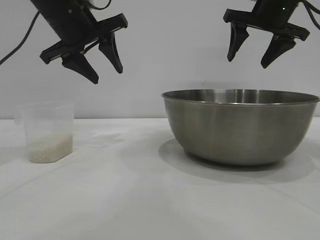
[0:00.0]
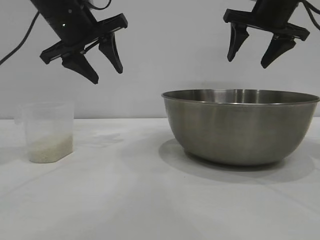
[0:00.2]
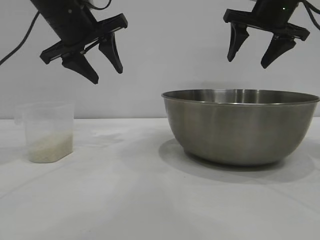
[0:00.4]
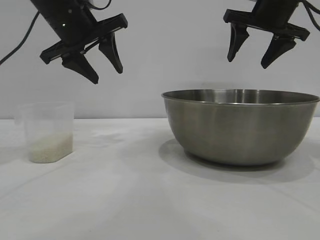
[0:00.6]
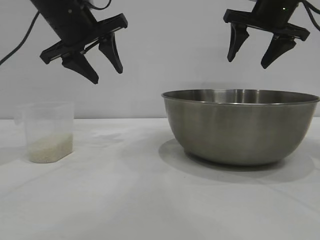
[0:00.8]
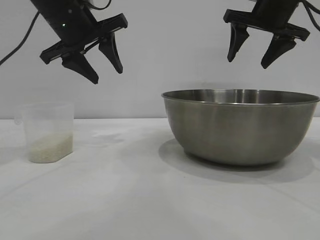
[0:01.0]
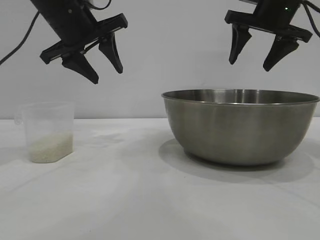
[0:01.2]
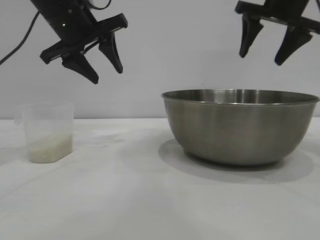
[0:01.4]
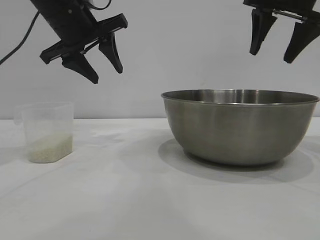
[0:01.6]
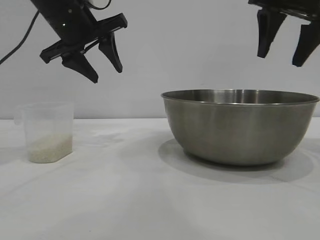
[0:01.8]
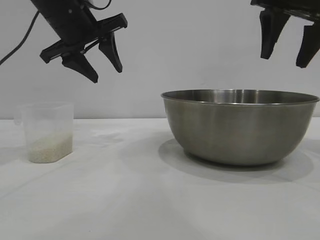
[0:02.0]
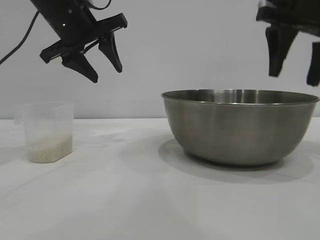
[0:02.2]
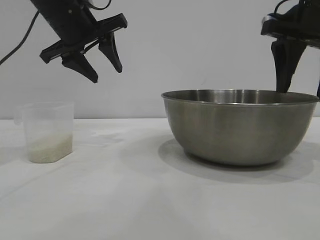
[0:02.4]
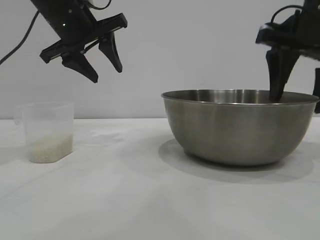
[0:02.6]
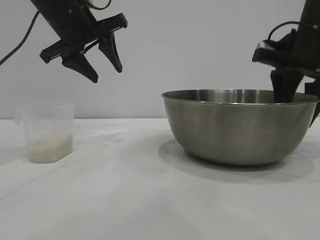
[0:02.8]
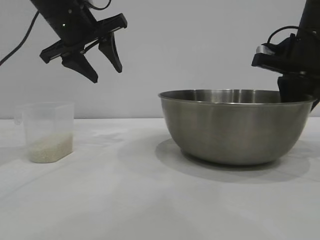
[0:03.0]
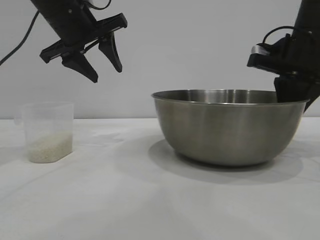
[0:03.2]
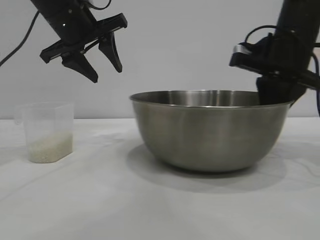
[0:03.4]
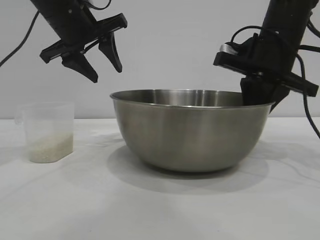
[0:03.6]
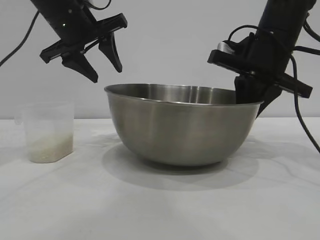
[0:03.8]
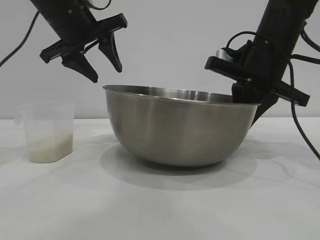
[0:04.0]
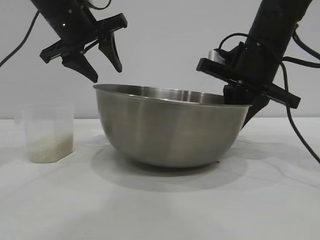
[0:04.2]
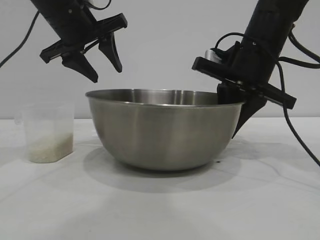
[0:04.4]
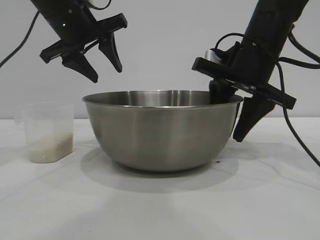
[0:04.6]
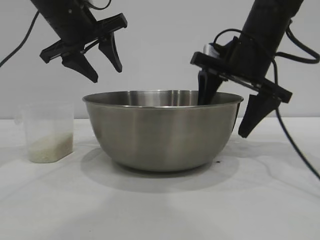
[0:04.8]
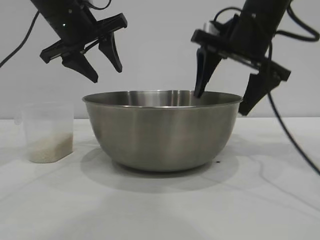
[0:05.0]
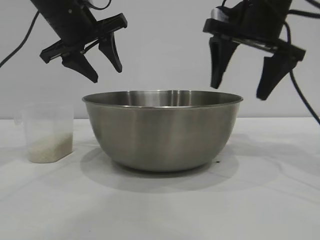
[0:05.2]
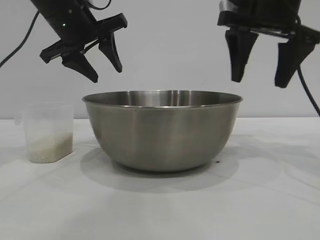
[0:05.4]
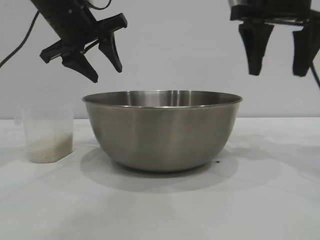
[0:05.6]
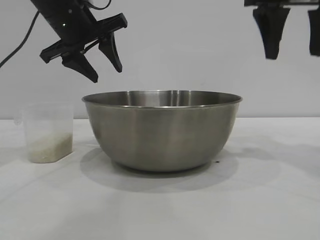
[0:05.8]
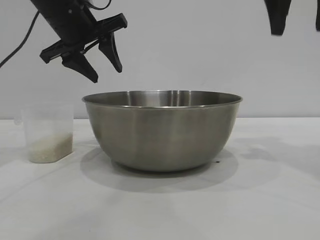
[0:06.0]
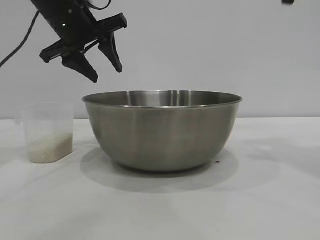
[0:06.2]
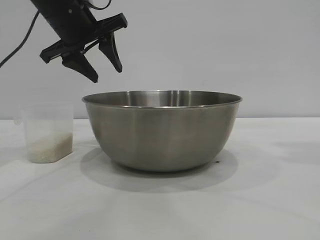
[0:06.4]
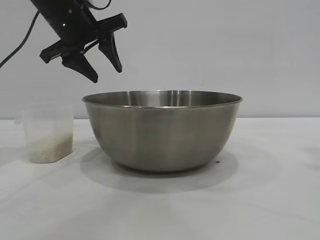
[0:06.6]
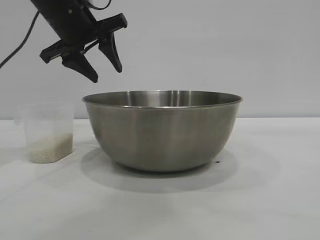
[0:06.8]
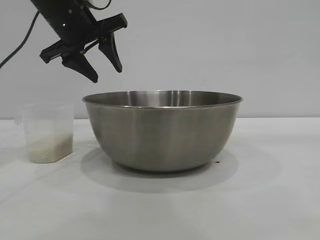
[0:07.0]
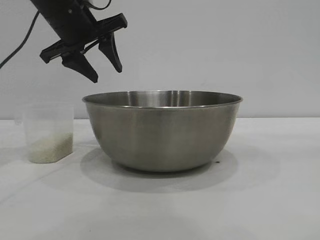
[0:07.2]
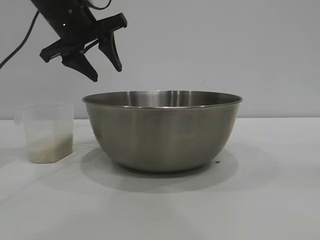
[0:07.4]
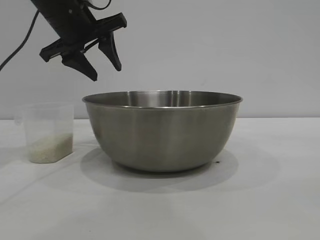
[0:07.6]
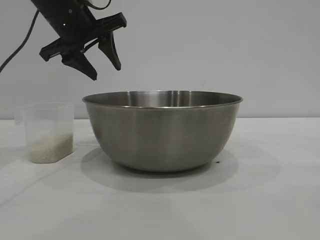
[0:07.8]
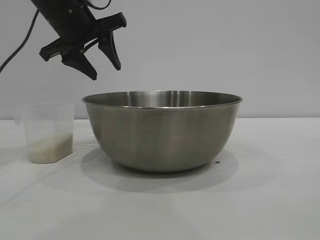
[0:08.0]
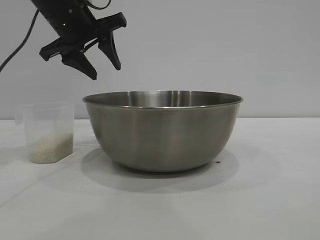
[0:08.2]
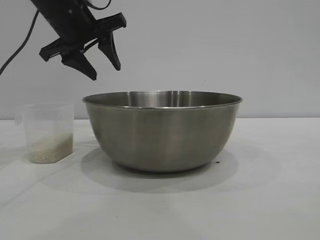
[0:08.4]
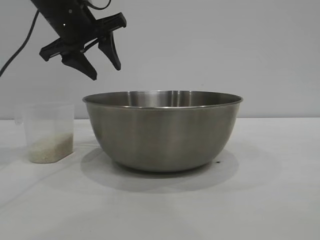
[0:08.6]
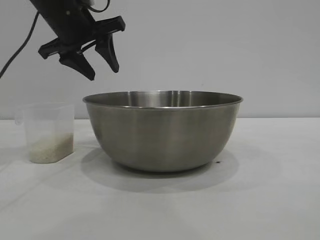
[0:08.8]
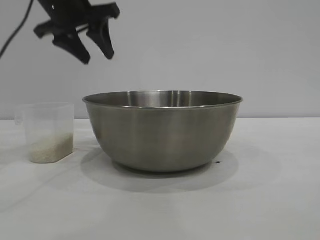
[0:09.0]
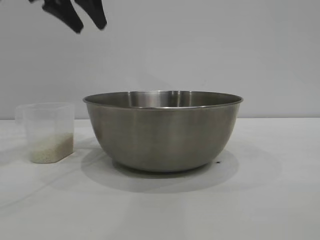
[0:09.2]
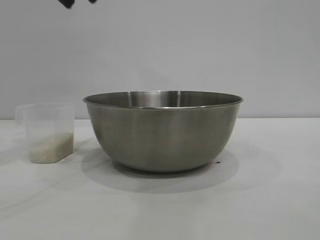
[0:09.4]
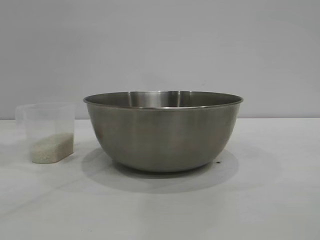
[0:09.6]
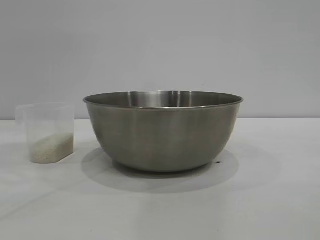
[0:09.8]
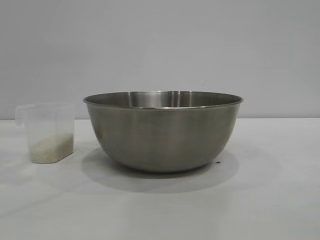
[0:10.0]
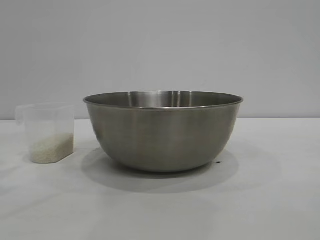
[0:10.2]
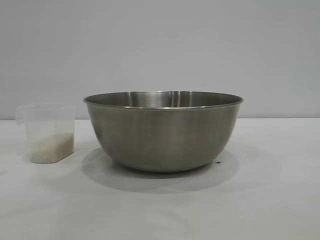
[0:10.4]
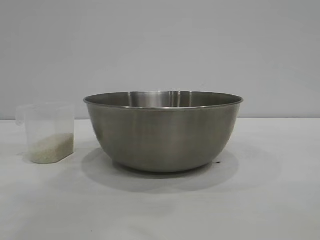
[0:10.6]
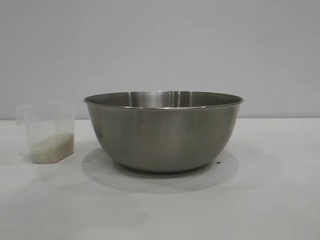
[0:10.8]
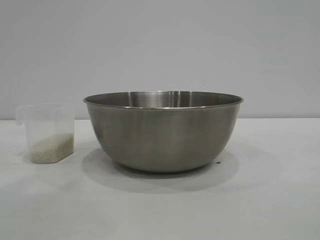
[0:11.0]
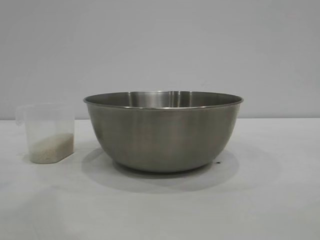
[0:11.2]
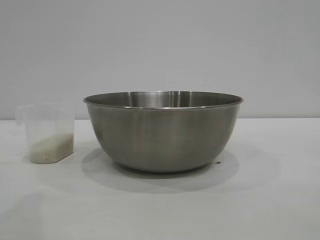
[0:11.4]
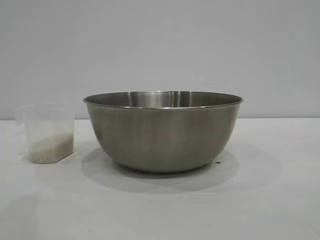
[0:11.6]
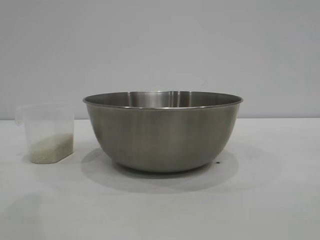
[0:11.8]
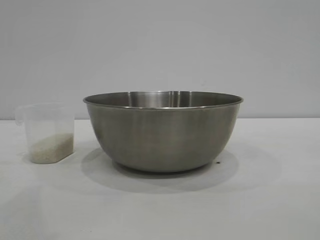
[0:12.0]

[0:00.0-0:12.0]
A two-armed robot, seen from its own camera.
Task of the whole recording: the right gripper grasp the rice container and place it in the center of the table, the left gripper grasp the rice scoop and pour the rice into the rice container.
Step, 0:00.0 to 0:05.2: Move the bowl to the center of view with the right gripper.

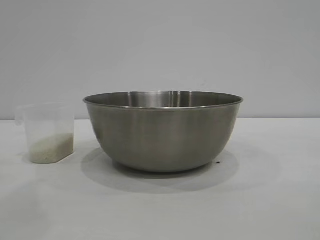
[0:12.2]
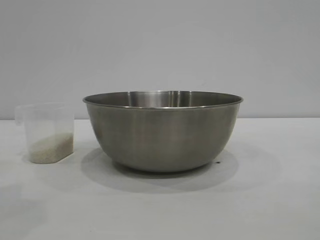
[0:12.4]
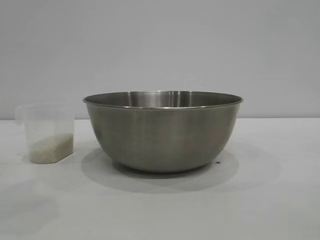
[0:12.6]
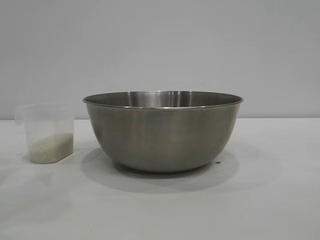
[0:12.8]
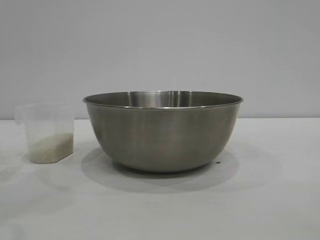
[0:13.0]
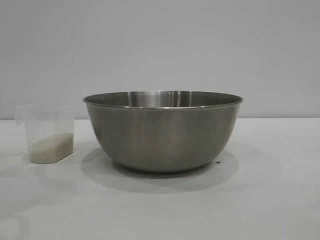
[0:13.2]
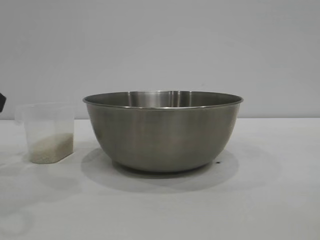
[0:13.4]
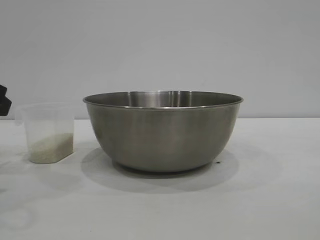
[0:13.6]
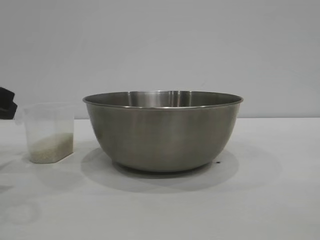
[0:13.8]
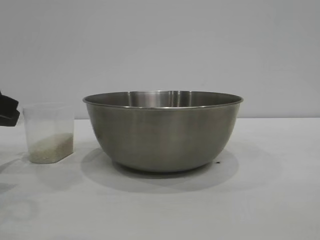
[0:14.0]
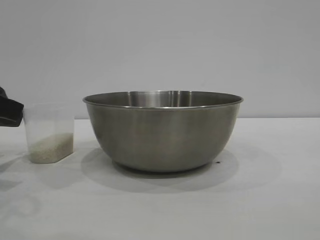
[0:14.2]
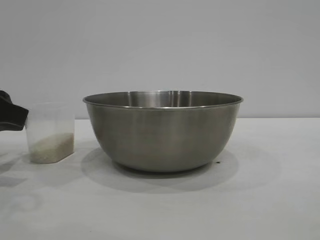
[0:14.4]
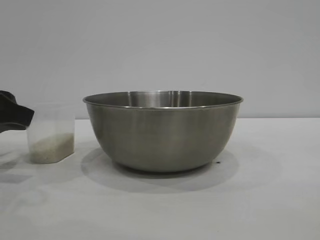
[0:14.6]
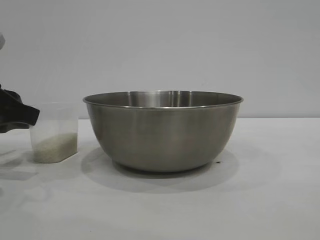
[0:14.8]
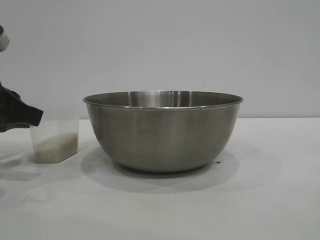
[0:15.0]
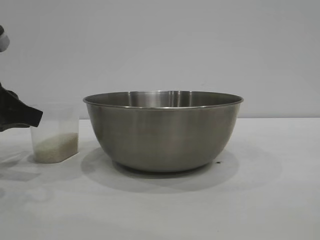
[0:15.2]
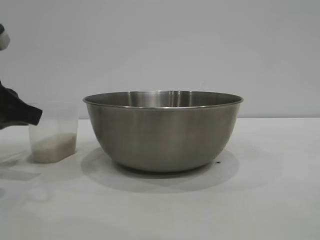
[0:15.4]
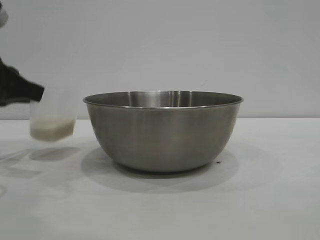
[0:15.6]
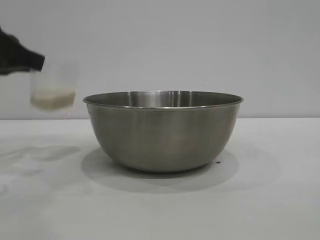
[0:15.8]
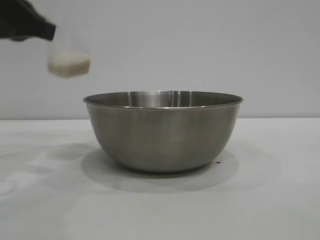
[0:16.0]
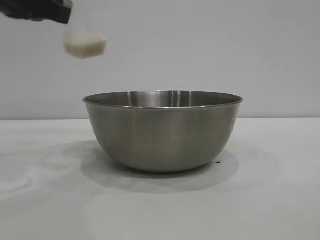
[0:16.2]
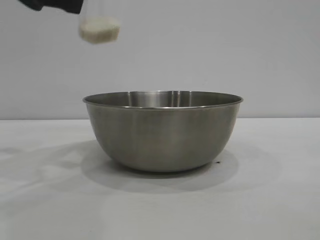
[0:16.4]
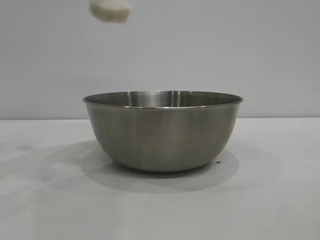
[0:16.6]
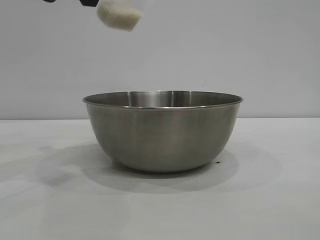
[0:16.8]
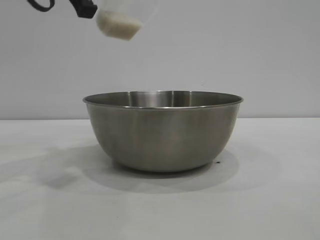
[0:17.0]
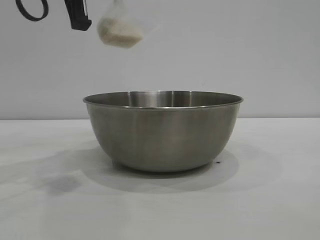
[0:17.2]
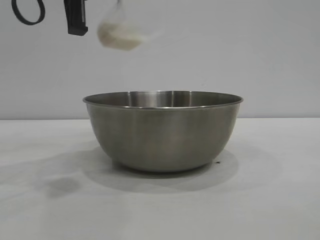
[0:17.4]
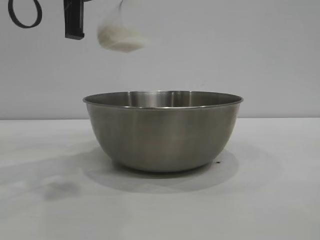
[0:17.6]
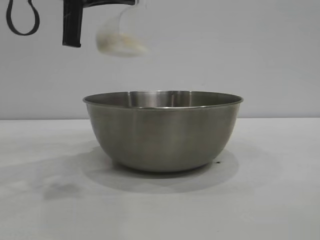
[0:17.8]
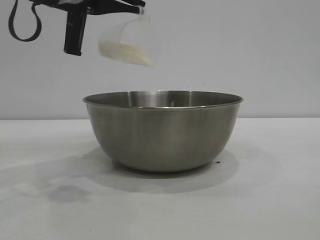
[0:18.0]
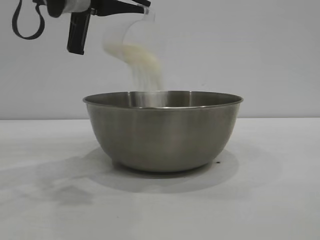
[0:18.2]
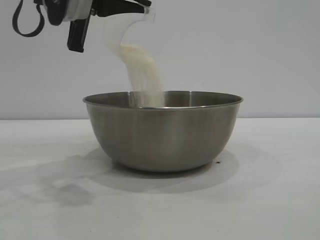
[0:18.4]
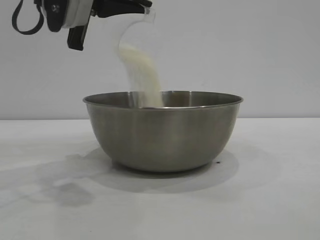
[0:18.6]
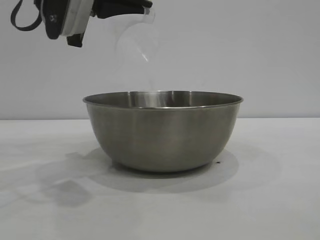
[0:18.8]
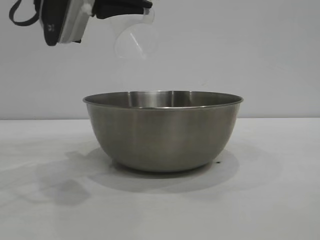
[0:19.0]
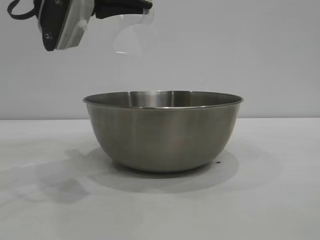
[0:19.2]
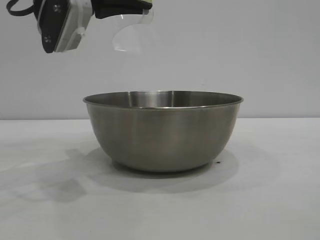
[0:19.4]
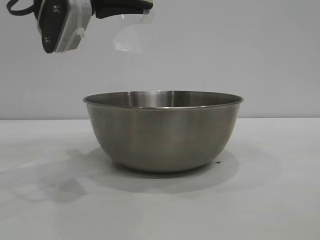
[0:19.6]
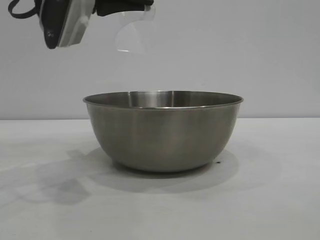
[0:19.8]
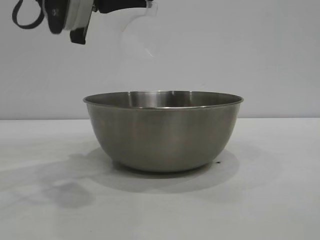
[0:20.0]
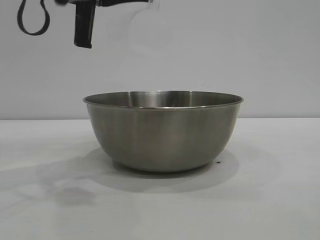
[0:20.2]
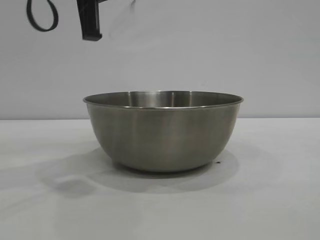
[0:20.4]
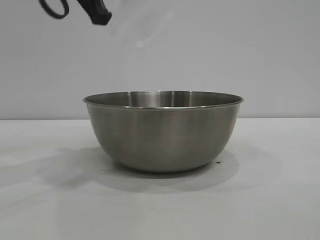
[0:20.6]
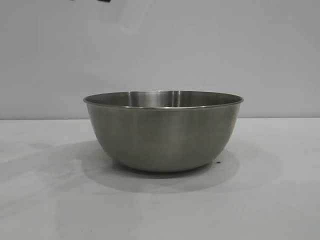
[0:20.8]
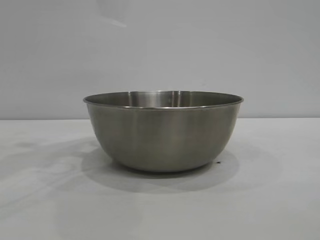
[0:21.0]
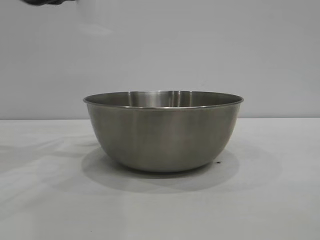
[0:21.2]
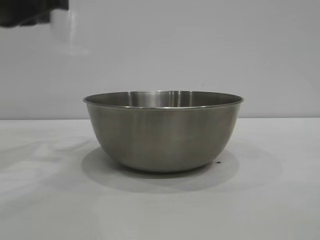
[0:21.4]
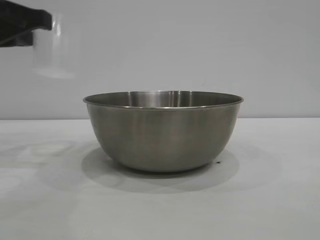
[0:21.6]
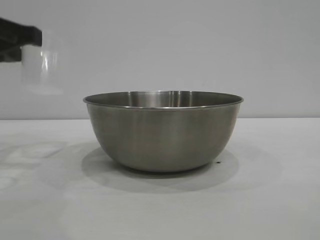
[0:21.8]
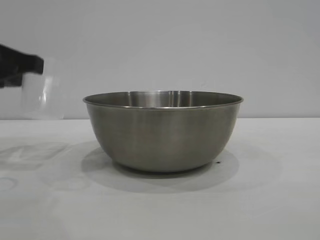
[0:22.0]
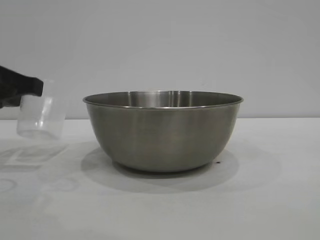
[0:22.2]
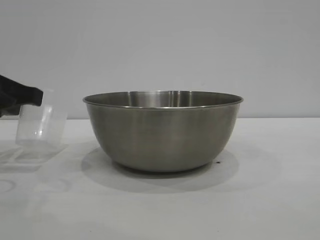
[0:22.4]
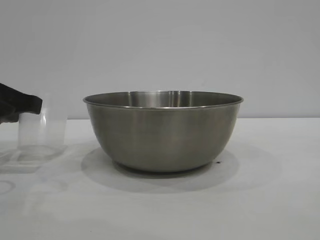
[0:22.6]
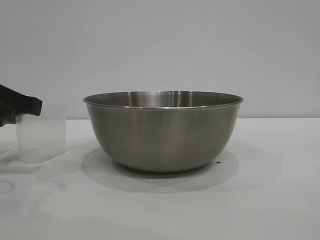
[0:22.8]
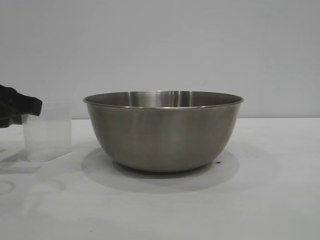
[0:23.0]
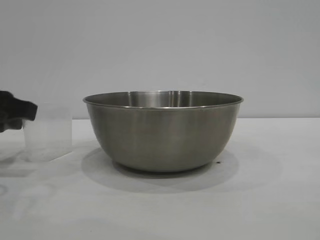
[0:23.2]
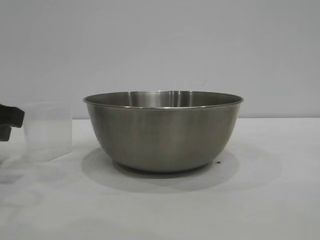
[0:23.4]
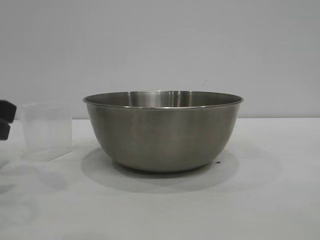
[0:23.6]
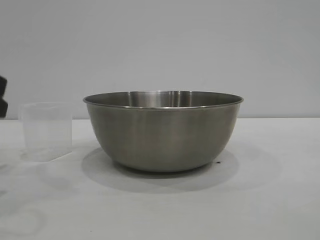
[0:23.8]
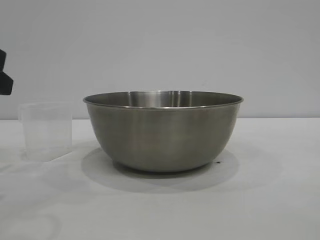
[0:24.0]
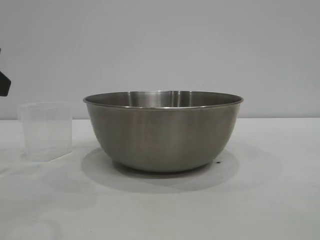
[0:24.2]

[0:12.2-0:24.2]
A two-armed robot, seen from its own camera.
Task of the whole recording: the right gripper grasp the rice container and place it in the center of the table, the left gripper grasp the rice scoop and pour the rice into the rice container.
Step, 0:12.2 to 0:15.8: Pick up the cup with rice in it with the left gripper.
Step, 0:16.0 to 0:20.6: Pour the rice from the cup into the bowl with the left gripper.
Step, 0:21.0 to 0:23.6: Place the cup on the table with the left gripper.
